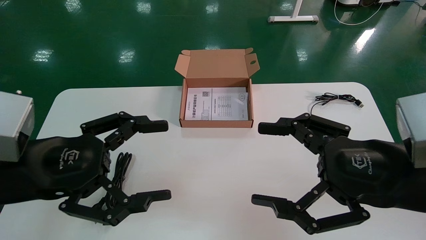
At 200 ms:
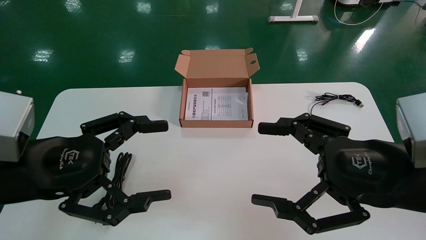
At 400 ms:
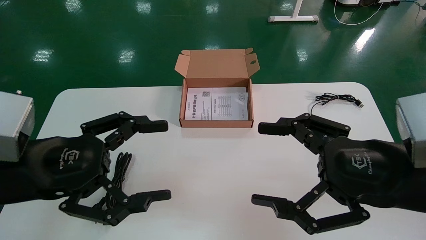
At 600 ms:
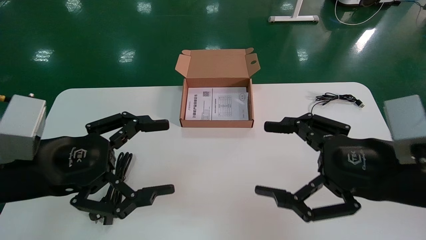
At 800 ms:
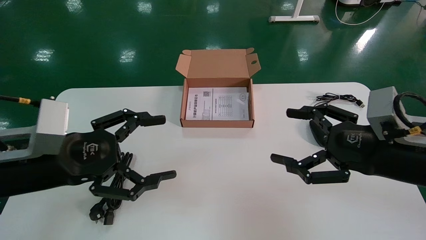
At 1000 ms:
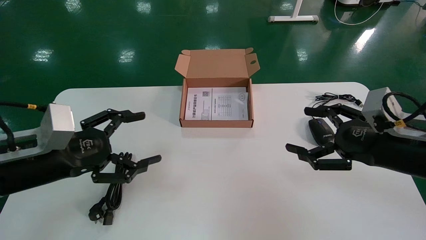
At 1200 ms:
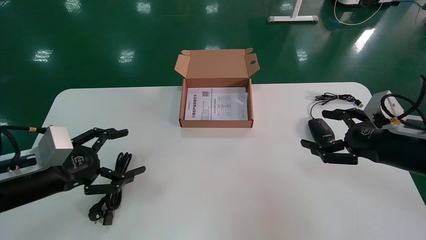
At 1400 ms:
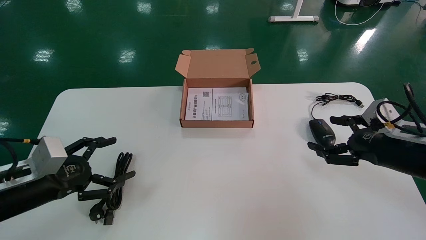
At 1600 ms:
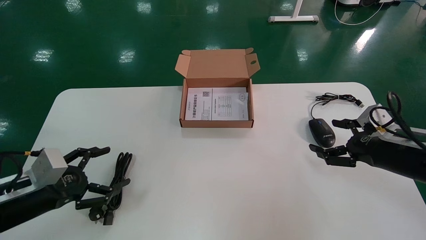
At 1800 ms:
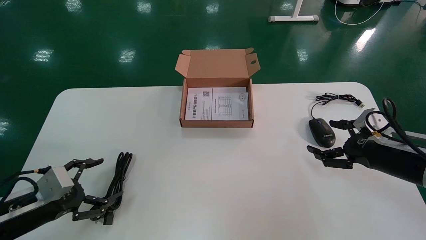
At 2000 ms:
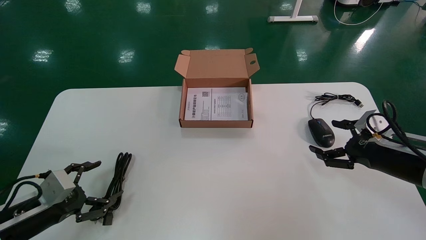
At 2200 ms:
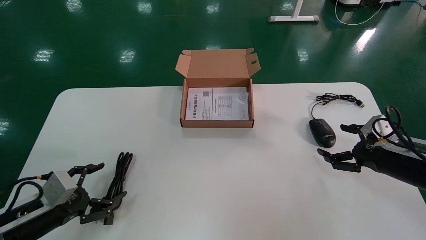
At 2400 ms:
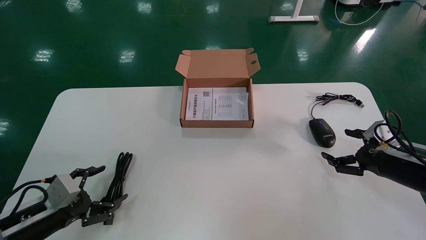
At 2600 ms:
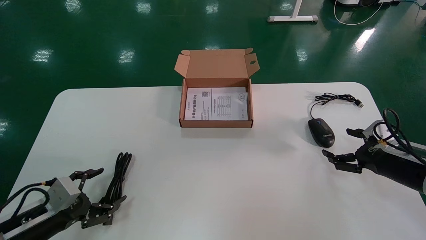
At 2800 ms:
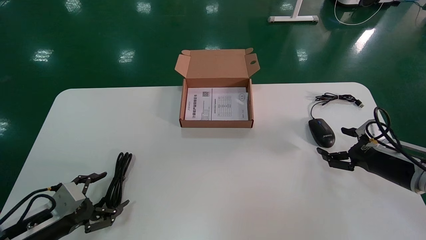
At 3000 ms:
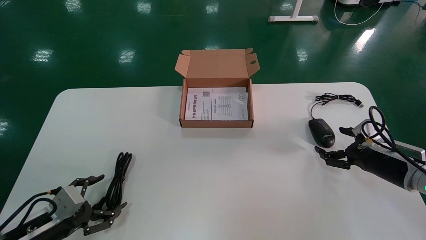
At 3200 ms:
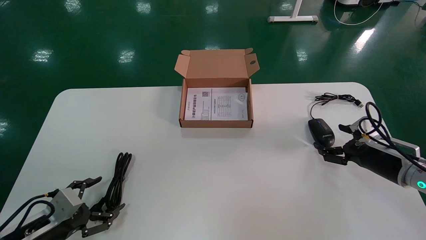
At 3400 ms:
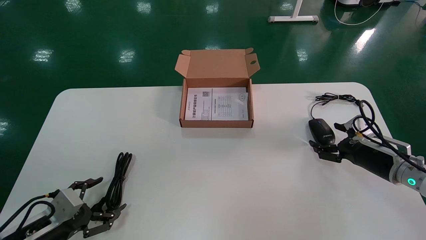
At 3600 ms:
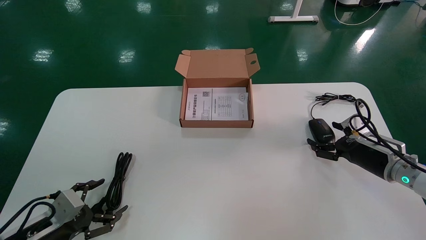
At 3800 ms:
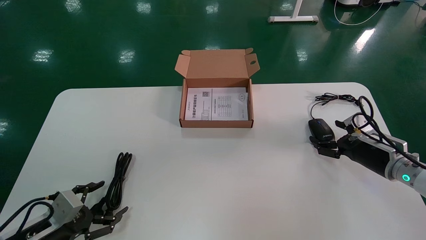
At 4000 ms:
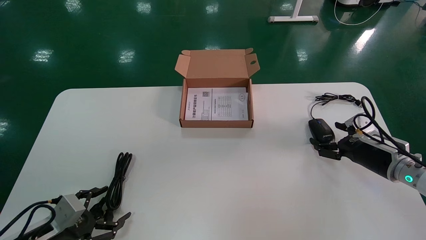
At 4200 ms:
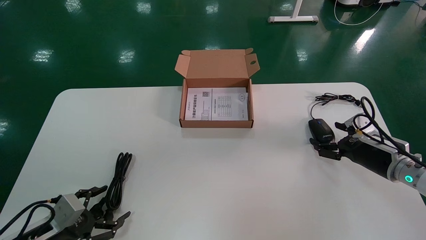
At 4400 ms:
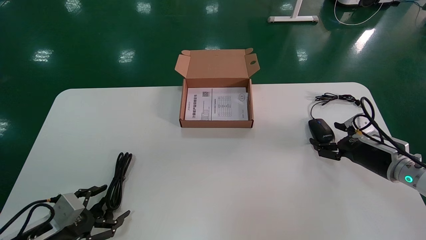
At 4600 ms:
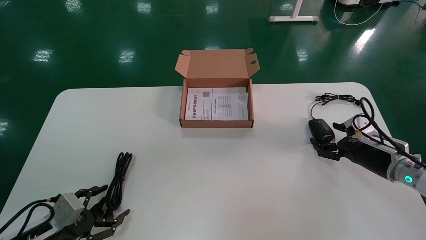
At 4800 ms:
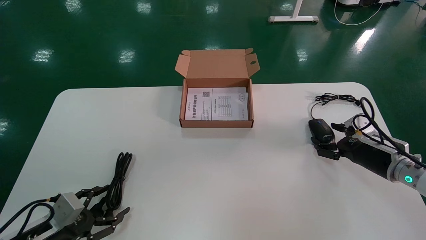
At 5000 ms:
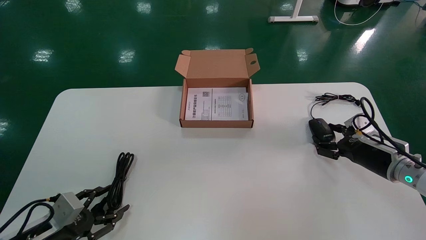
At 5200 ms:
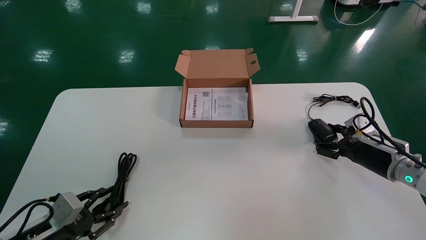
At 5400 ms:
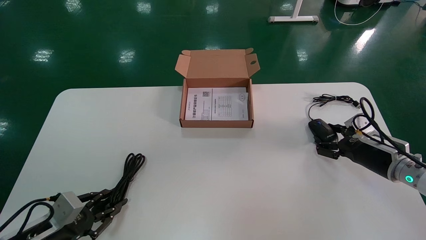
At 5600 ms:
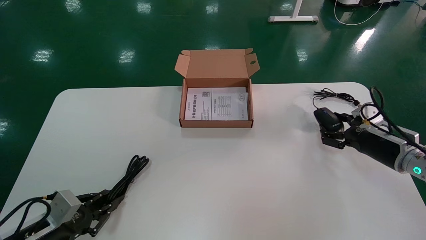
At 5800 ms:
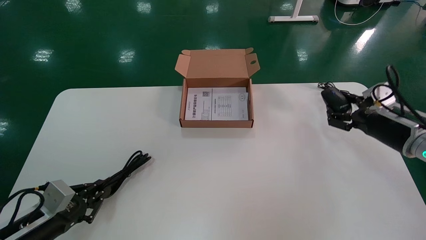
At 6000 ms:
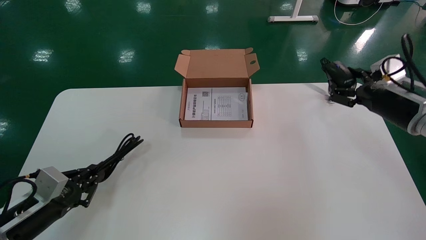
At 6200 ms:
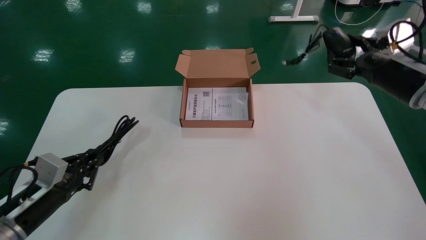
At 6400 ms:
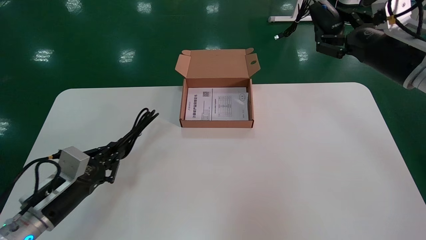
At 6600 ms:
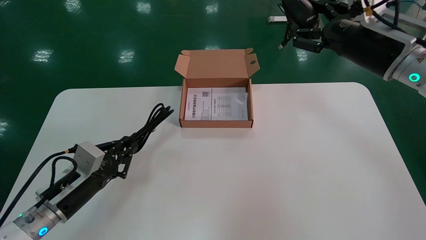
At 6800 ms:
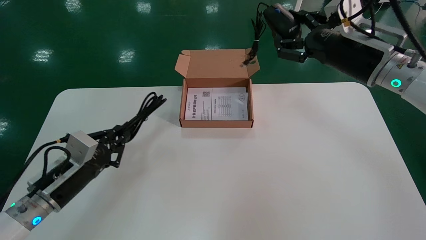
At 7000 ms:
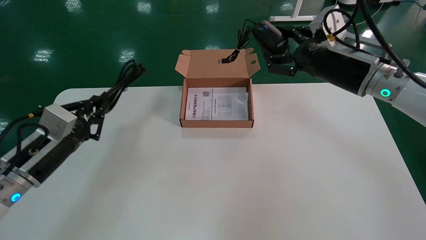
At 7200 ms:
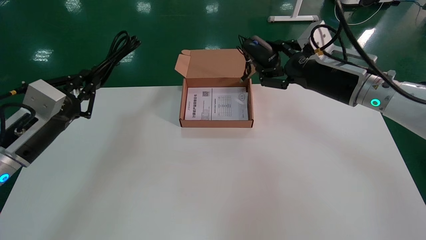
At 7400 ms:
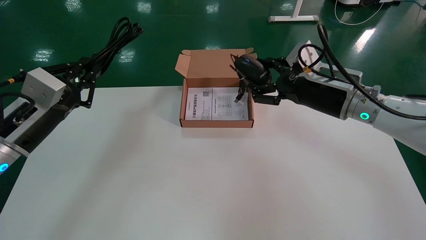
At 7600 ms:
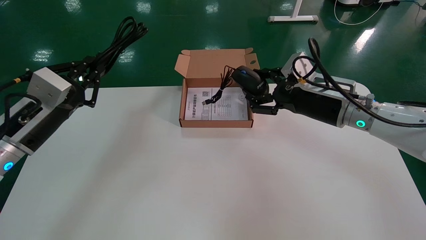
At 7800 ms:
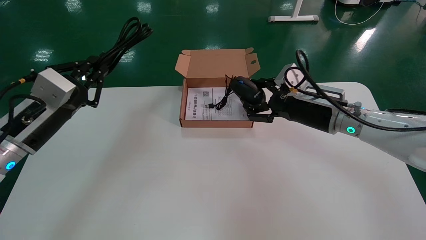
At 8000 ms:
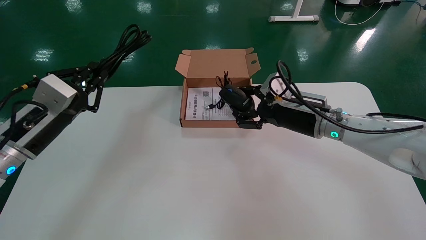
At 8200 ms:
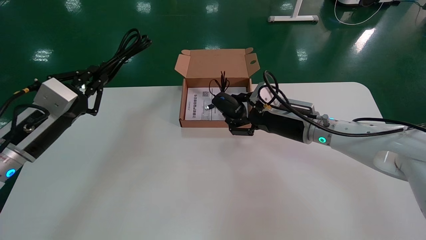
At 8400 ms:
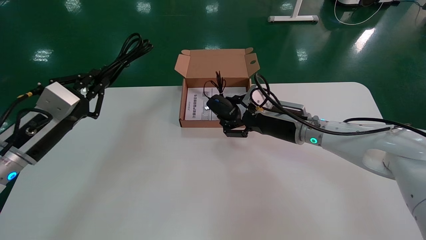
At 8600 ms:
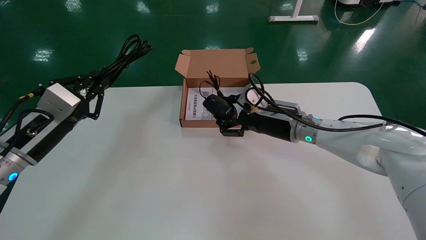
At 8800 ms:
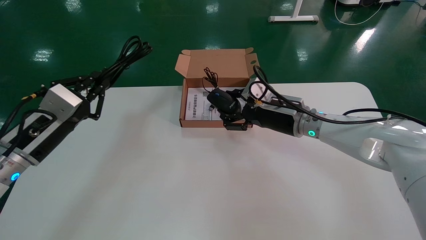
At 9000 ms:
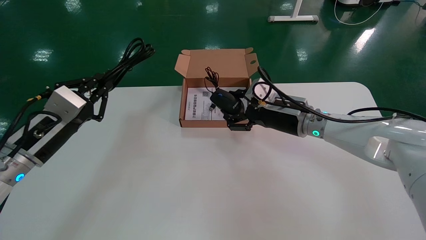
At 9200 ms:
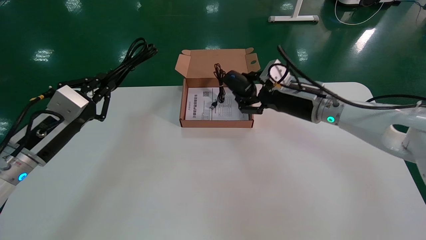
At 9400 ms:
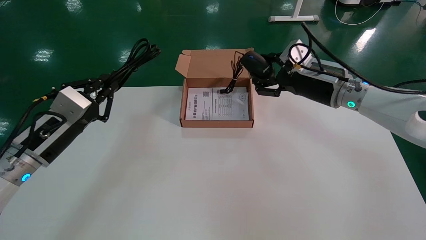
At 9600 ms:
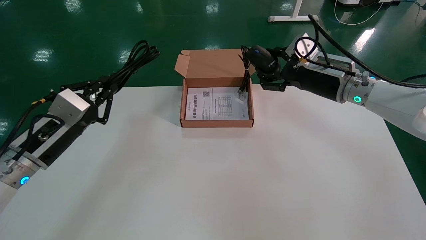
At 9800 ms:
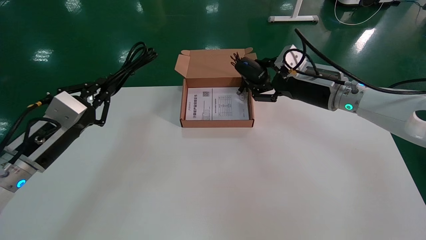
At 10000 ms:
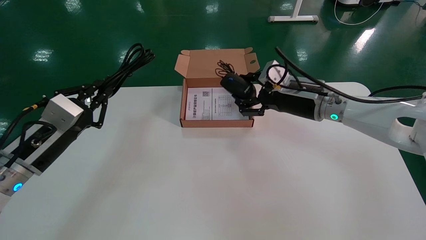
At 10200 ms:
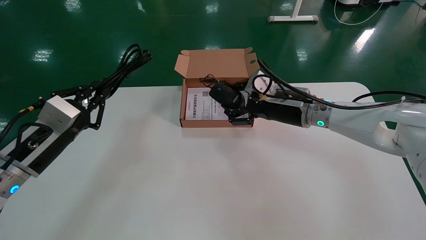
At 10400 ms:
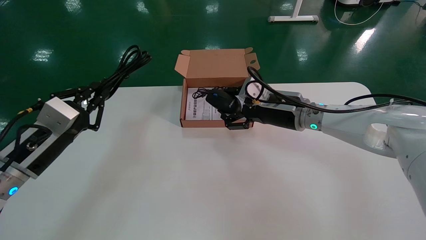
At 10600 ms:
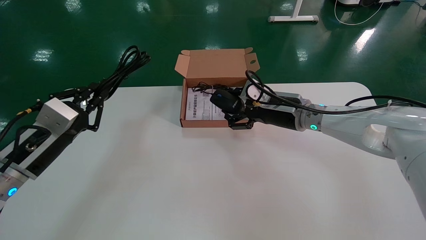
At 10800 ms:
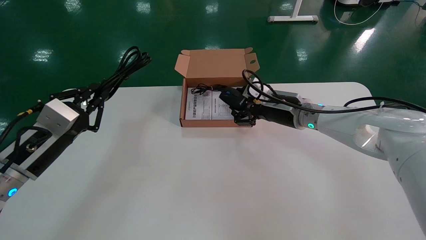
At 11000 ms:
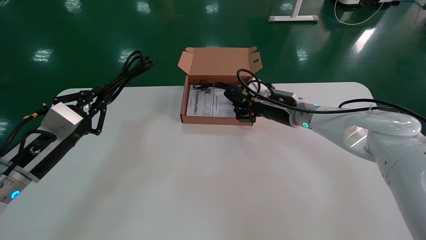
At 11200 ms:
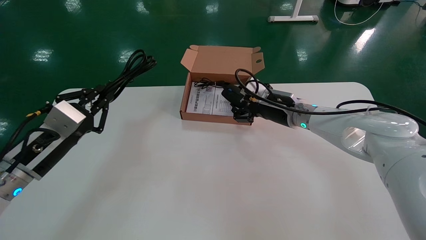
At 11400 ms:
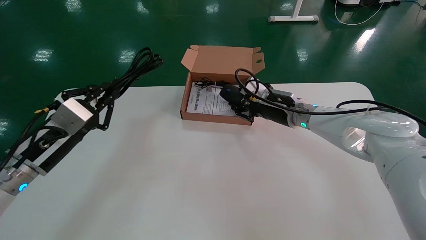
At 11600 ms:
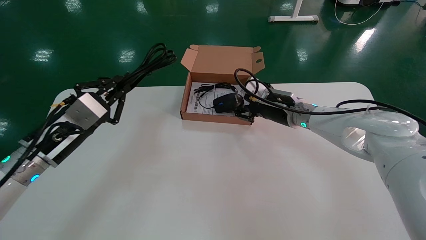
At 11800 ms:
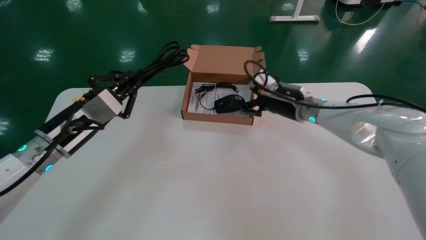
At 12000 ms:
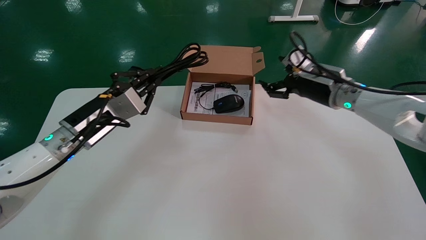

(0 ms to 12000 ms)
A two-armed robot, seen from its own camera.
Step, 1000 ms - 5600 ms: Grab and pick up the mouse and power cord from the accessory packaging area.
0 ms - 1600 ms: The right gripper heads forward, to the right and downward, covering roughly 20 cm; the left gripper travels downward, to the left and forward by approximately 15 cm.
1600 ms - 3000 ms: The left gripper is displaced downward by roughly 10 cm; the right gripper goes approximately 10 cm downward and forward.
3000 ms - 4400 ms: The grippers move only a little.
4400 ms - 6000 ms: The left gripper closes up. Meanwhile the right gripper travels upward by some 15 cm, and closes.
6000 ms - 7600 ms: The right gripper shifts about 15 cm to the left; the left gripper is displaced upward by about 15 cm.
7600 ms - 9000 ms: The right gripper travels to the left by roughly 5 cm.
10400 ms - 12000 ms: The right gripper shifts roughly 5 cm to the right, and opens its fingers; the left gripper moves to the right and forward, roughly 10 cm.

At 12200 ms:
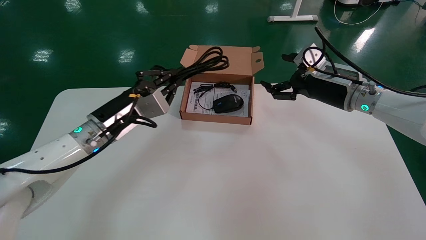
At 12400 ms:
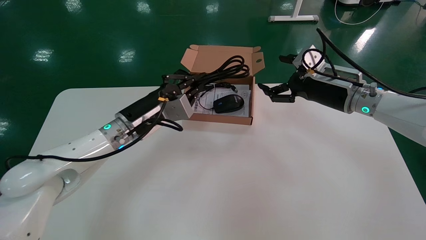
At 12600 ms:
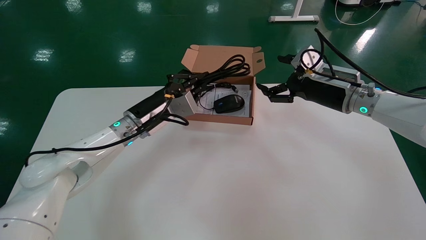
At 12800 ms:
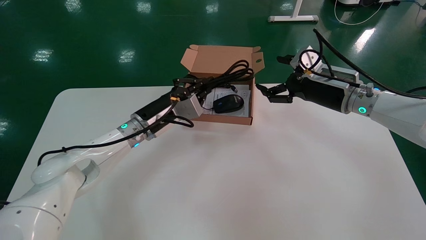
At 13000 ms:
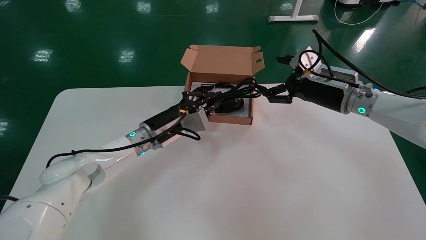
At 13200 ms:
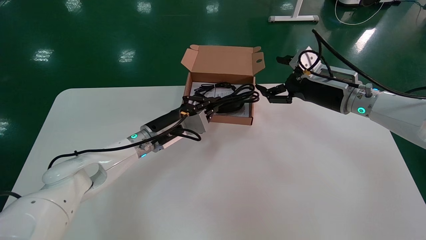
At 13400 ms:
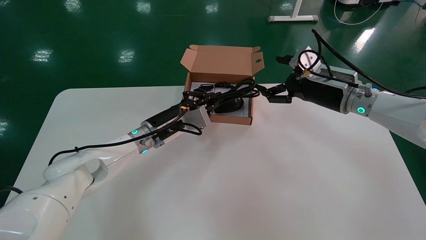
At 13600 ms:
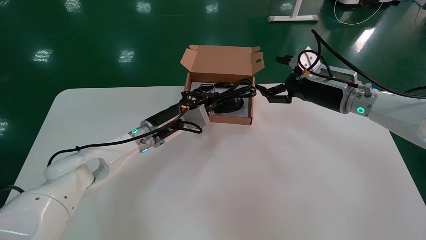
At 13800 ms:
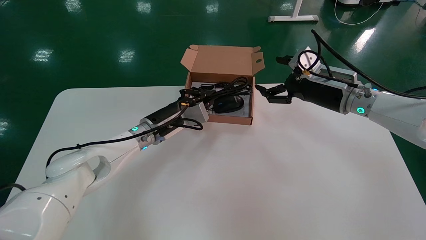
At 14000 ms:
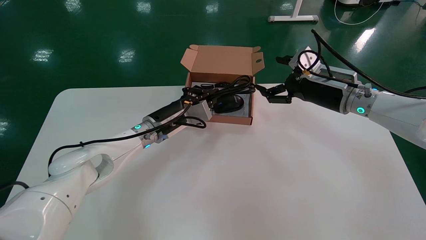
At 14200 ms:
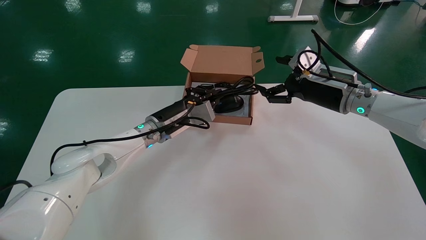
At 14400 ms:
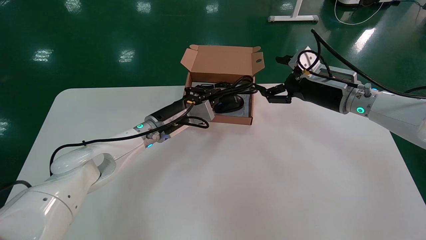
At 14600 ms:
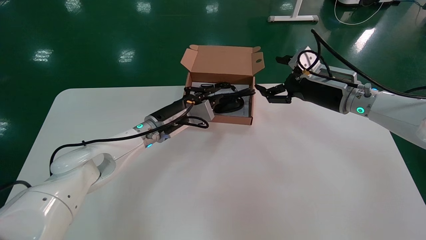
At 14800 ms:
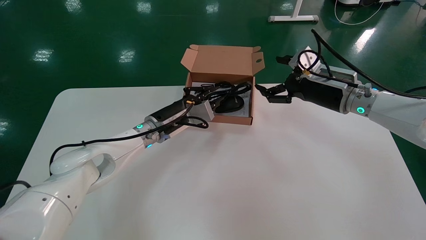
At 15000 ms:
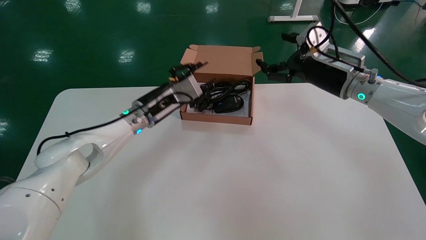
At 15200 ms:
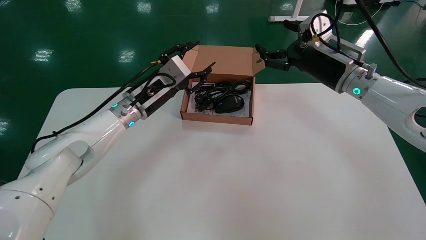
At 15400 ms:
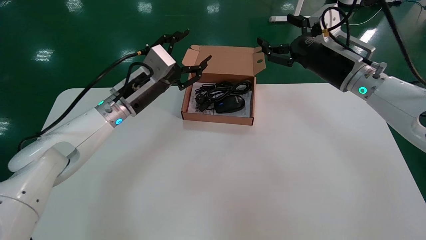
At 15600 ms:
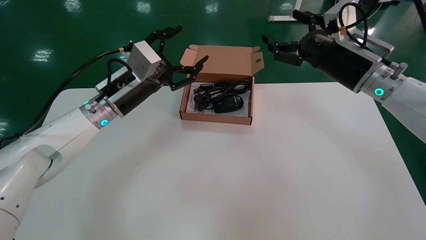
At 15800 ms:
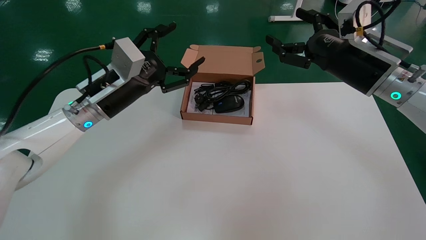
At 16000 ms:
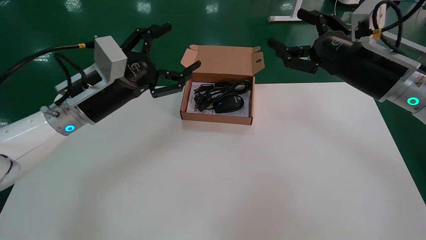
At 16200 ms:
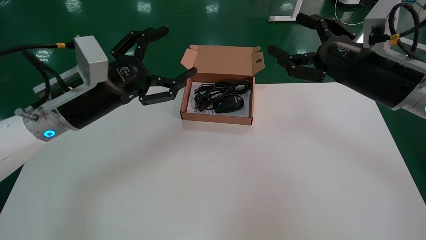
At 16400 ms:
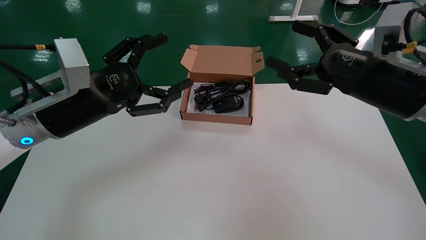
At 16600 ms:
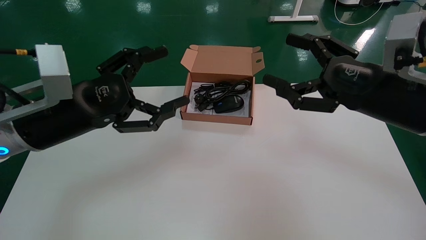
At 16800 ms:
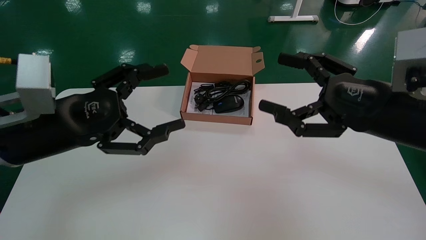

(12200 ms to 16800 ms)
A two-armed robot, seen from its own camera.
Step, 12200 ms - 15200 ms: Place the mouse and power cord into the box.
12200 ms - 13800 ms: The left gripper shifts about 10 cm forward and to the right.
13800 ms - 15200 ms: The left gripper is displaced upward by about 5 cm.
15200 ms - 16800 ms: The right gripper travels backward by about 20 cm. Meanwhile the left gripper moves backward and to the left, about 25 cm, and opens its fingers.
